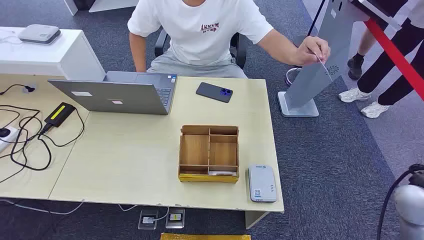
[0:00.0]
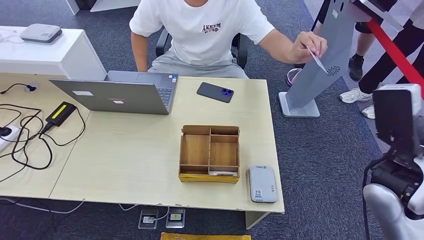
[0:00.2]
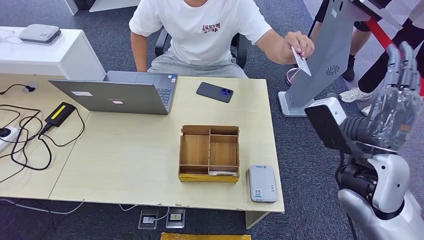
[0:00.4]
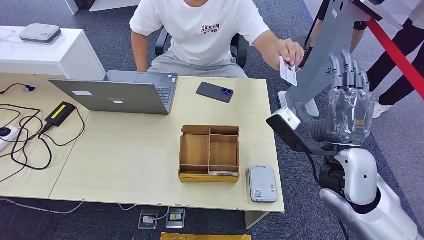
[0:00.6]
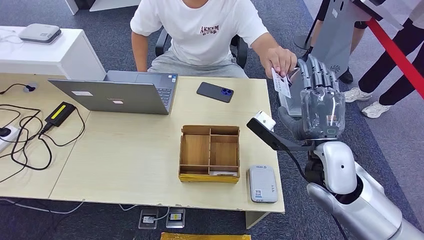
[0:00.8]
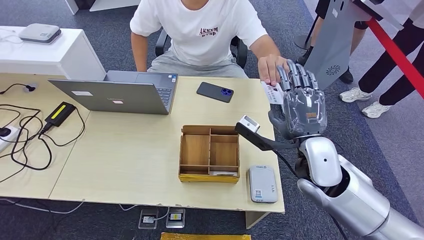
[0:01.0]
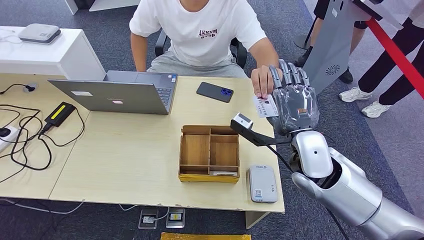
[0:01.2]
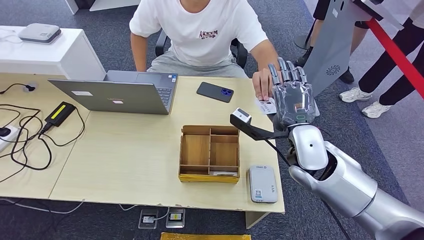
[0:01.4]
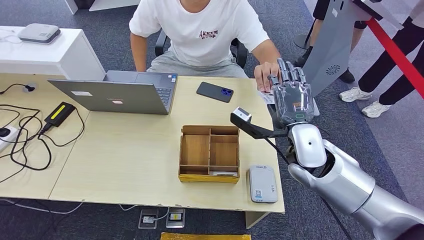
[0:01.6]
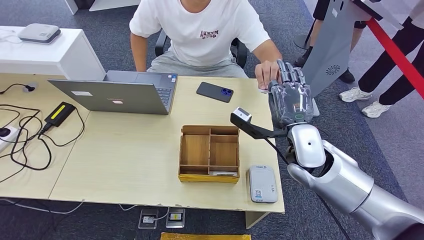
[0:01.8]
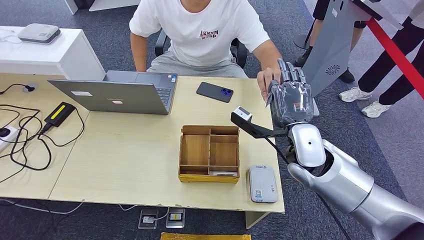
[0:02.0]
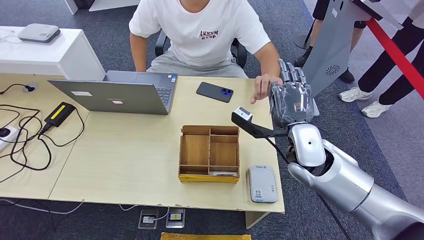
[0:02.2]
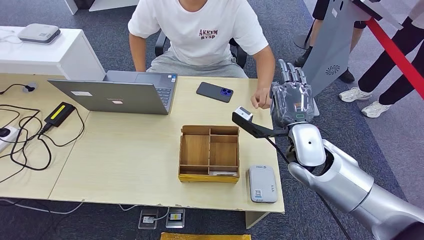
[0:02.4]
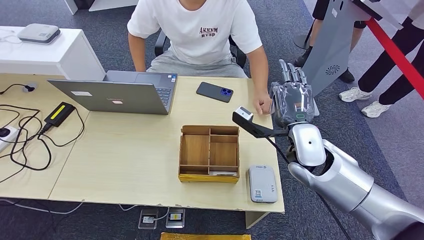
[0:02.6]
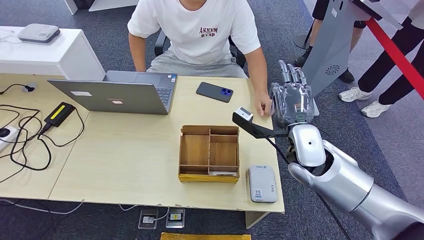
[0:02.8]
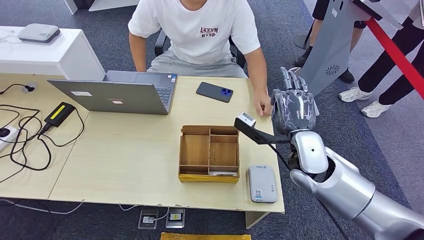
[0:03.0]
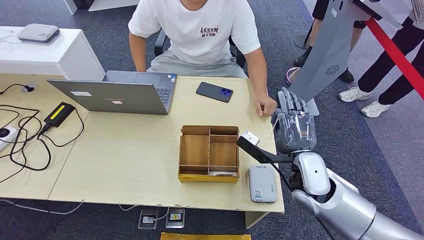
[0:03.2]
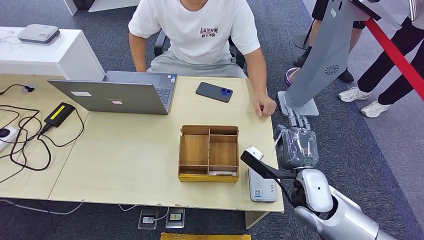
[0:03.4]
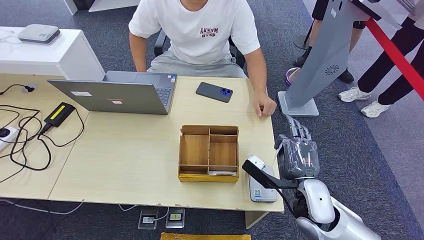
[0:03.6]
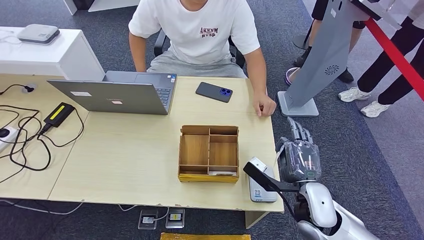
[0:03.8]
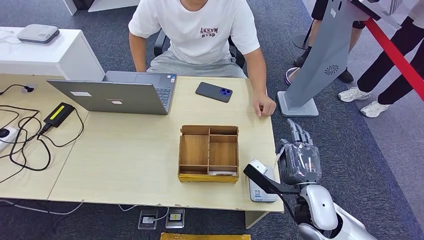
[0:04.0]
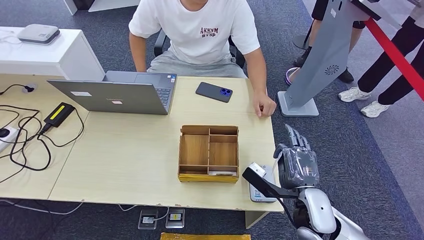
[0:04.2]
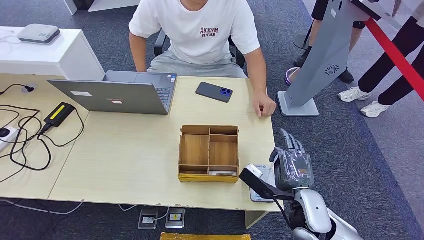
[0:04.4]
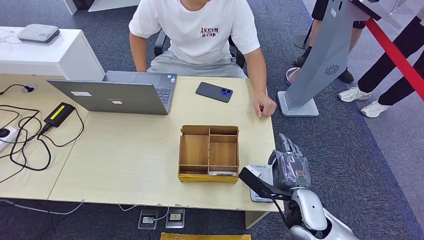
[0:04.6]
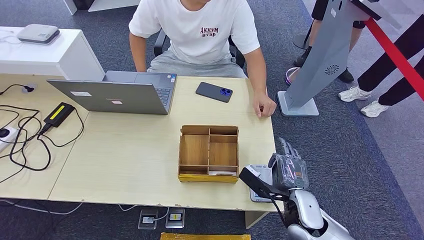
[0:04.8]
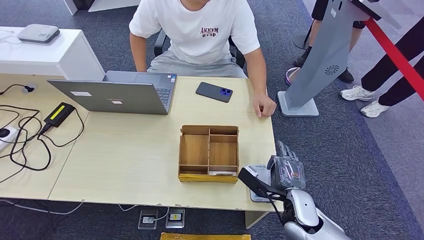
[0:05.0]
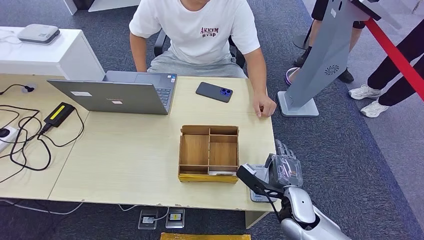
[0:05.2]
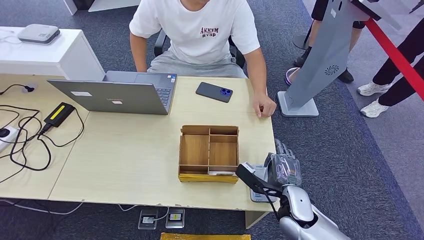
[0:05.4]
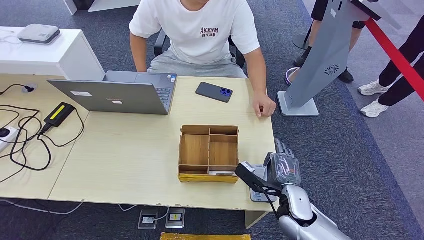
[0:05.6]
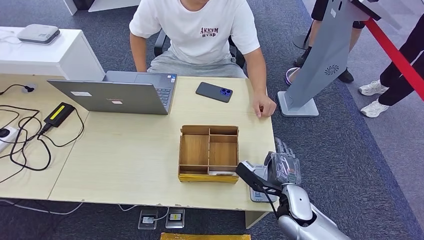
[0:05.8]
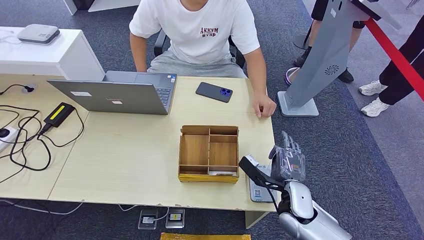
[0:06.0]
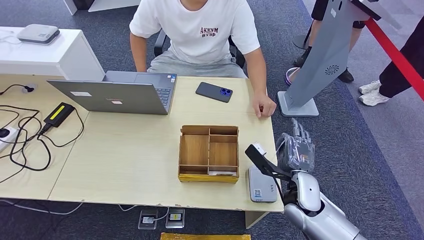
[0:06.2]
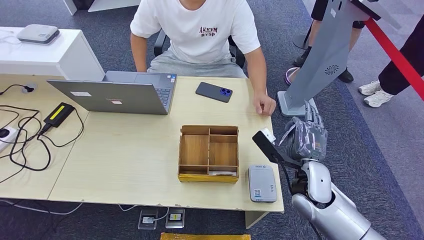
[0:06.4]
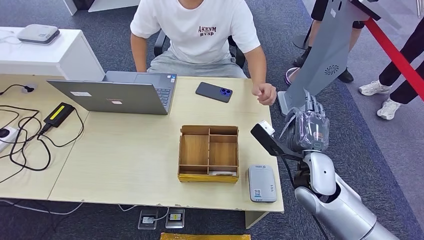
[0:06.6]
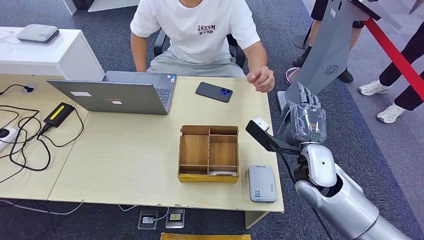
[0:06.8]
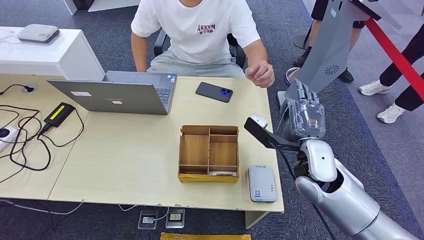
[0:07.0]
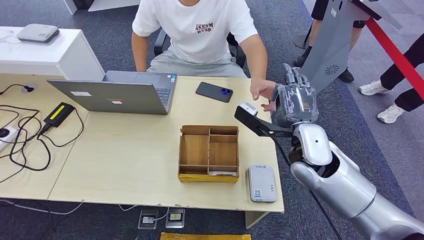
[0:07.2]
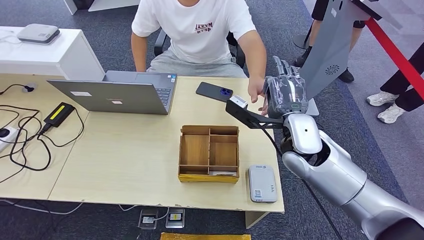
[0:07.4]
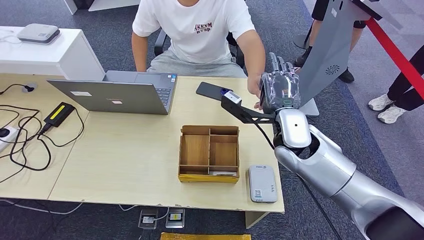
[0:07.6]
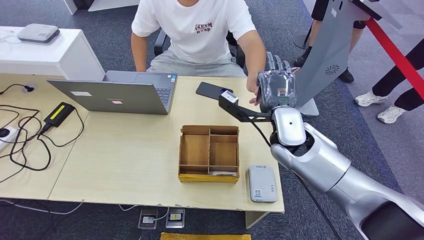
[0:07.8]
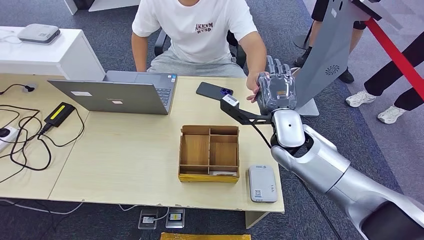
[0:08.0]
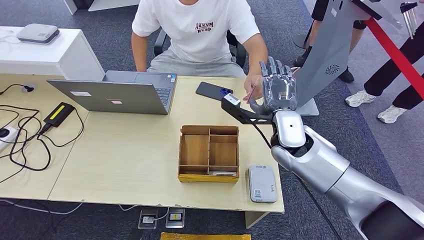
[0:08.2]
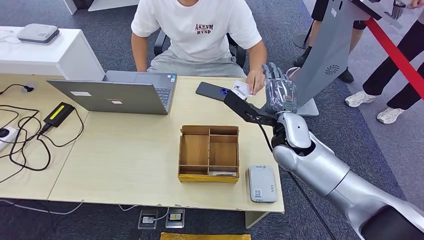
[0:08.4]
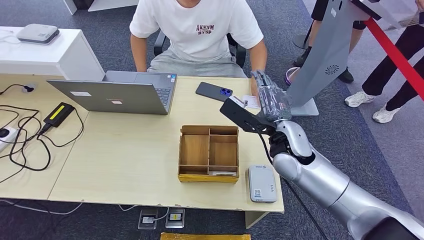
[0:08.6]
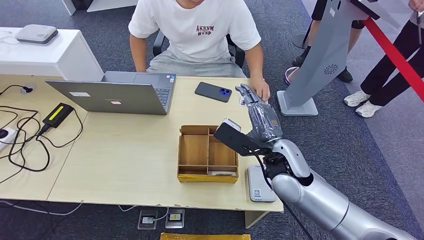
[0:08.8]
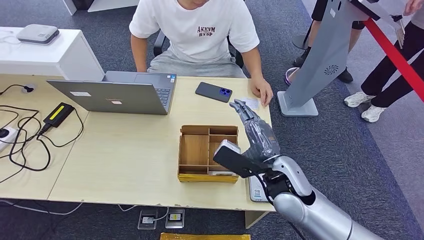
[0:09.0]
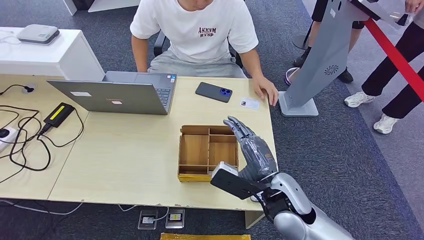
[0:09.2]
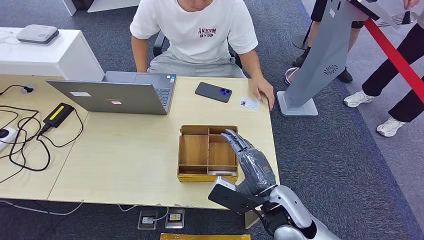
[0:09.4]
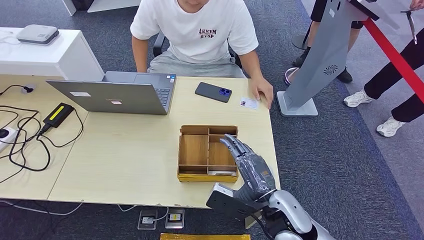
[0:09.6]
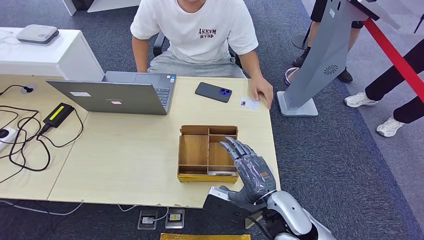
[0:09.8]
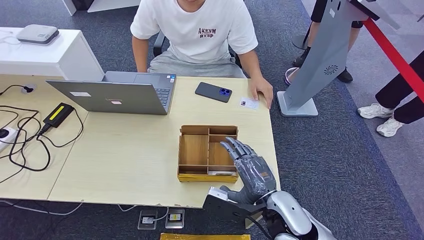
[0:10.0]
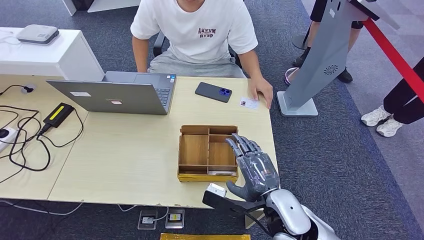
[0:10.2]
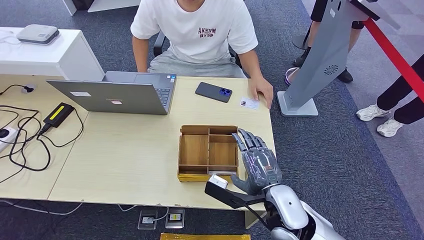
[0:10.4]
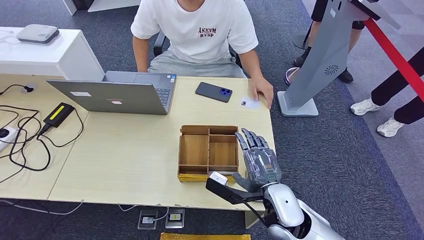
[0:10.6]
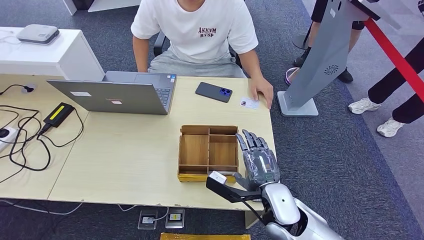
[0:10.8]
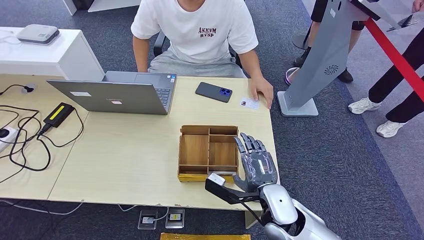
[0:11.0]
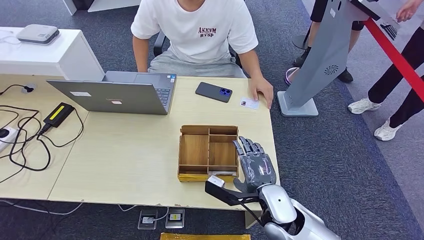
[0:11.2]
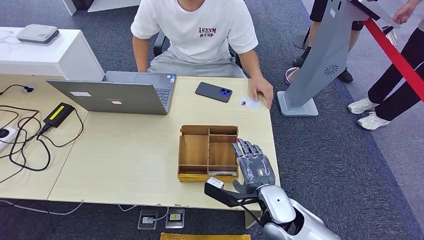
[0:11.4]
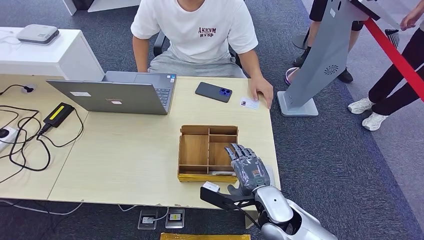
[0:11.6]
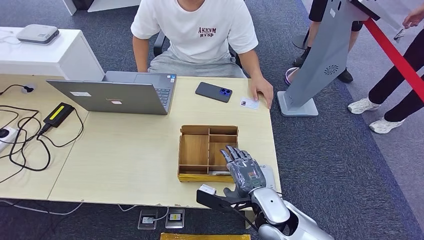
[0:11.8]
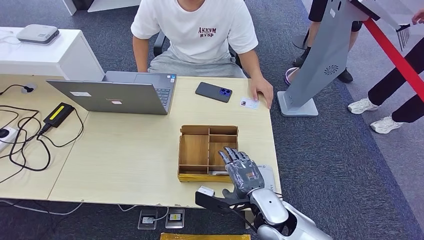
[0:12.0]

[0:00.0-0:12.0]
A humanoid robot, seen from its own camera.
Step, 0:00.0 to 0:03.0: Take the ID card from the person's hand.
Step, 0:03.4 to 0:07.4: Place the ID card on the card reader.
Step, 0:07.6 to 0:10.4: Hand the ID card to the person.
0:01.6 to 0:03.0: The hands stay close to where they were, moving slightly.
0:03.0 to 0:04.4: The right hand heads downward and backward, covering some 15 cm.
0:04.4 to 0:06.0: The right hand ends up about 5 cm from where it was.
0:06.0 to 0:07.6: The right hand goes roughly 20 cm upward and forward.
0:09.0 to 0:10.4: The right hand goes approximately 5 cm backward.
0:10.4 to 0:12.0: The hands stay close to where they were, moving slightly.

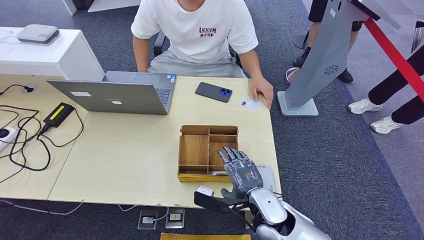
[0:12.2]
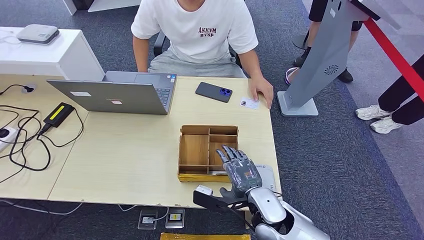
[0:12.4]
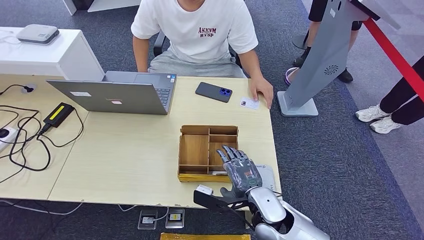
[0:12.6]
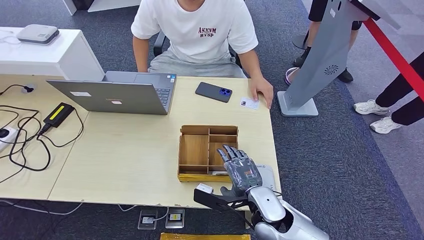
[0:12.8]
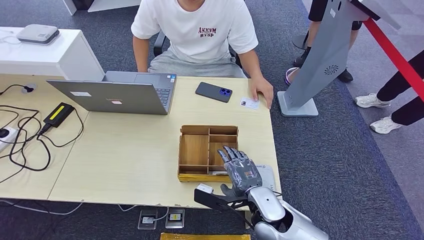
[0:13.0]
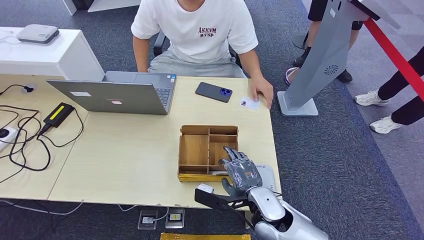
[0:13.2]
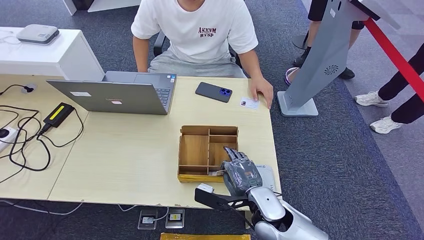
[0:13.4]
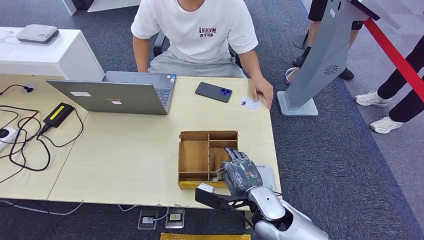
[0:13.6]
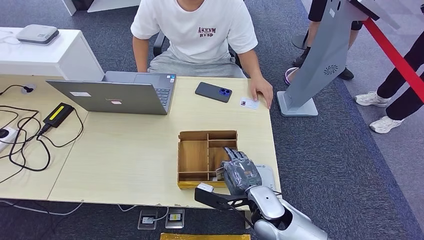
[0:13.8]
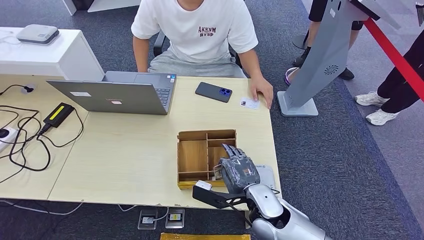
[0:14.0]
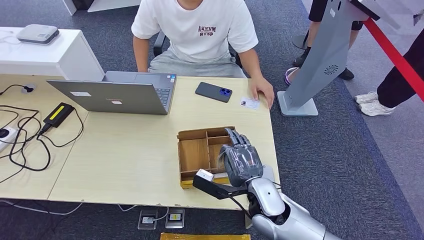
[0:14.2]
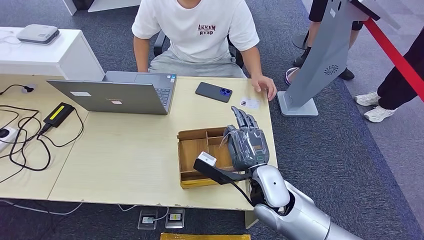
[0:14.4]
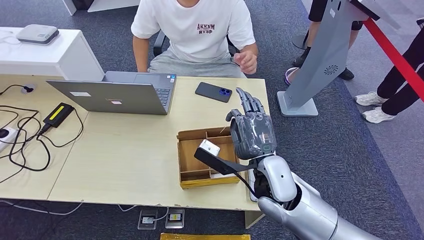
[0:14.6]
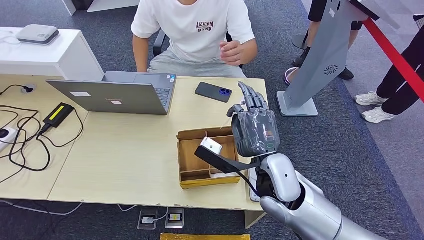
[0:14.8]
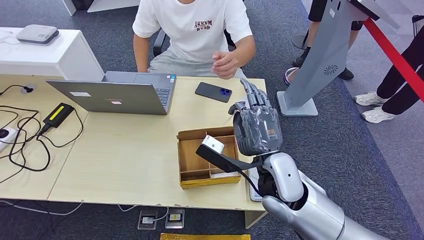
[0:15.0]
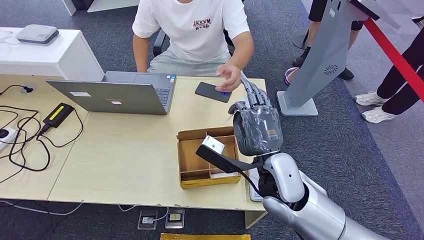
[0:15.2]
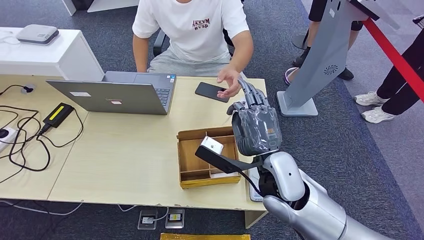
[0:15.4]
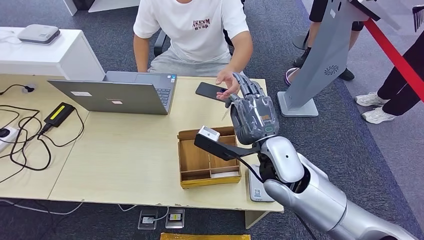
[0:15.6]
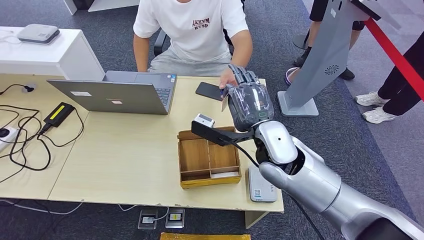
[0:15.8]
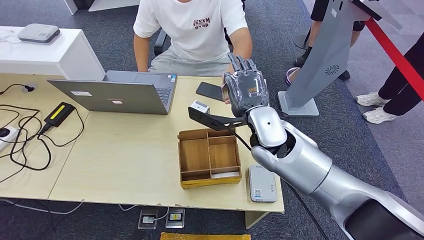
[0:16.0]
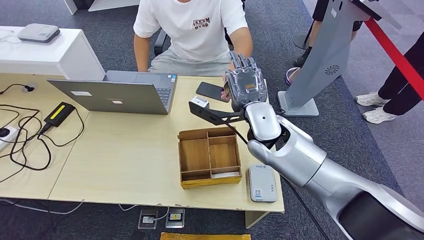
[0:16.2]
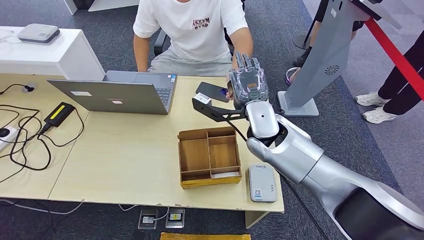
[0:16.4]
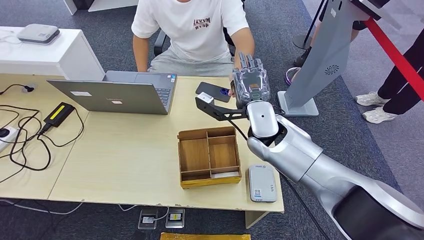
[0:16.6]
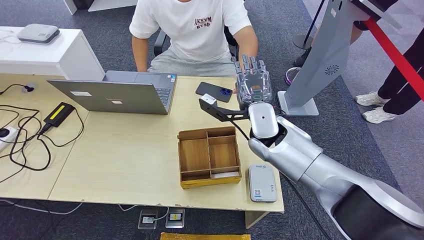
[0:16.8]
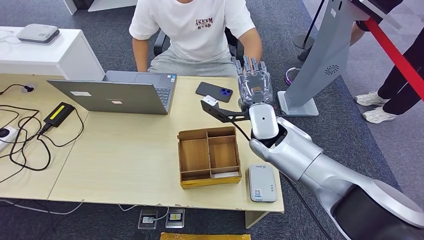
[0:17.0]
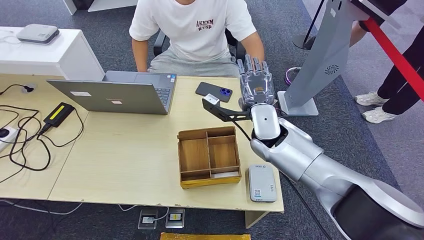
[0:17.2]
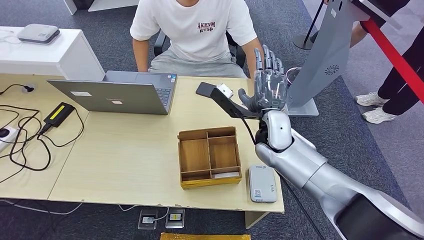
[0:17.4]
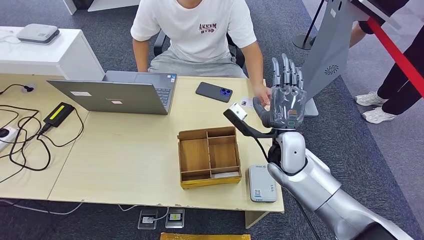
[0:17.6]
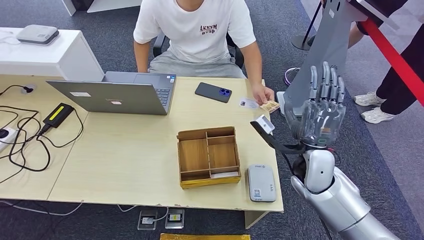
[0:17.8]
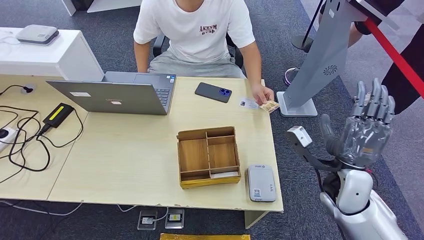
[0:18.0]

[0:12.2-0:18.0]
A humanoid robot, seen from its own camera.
Step, 0:12.2 to 0:15.8: Pick up the room key from the key card box.
0:12.2 to 0:13.6: Neither hand changes place.
0:13.6 to 0:15.0: The right hand heads upward, covering some 10 cm.
